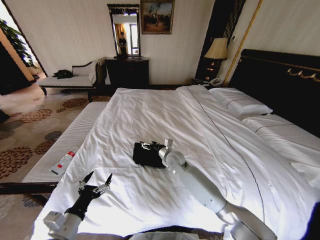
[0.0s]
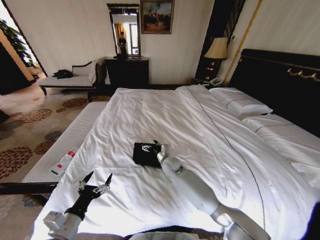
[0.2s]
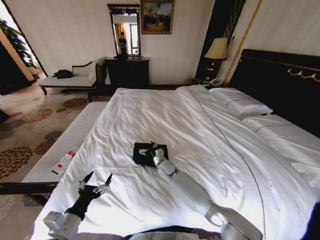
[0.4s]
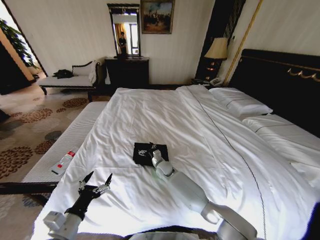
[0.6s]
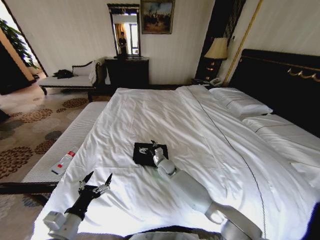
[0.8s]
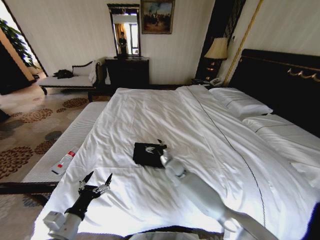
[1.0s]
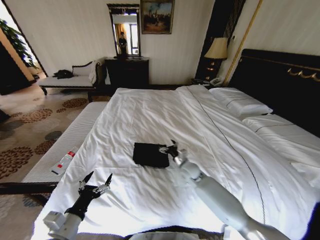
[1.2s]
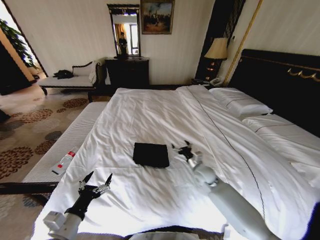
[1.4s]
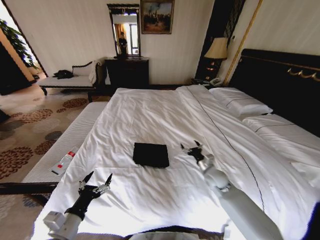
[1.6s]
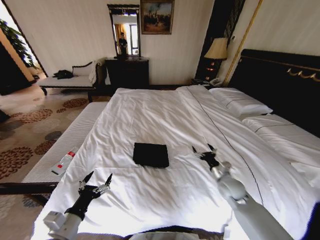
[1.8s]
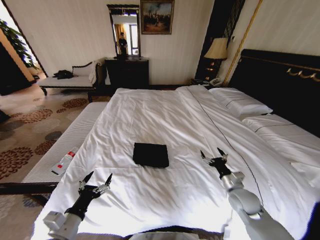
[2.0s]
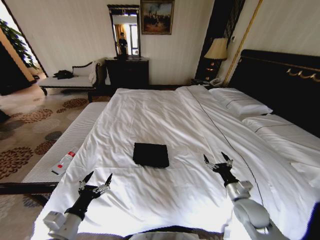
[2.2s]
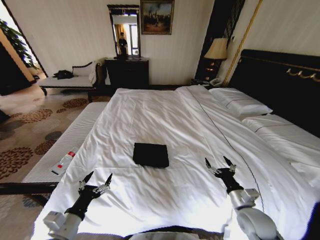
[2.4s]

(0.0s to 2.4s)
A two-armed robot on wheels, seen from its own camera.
Task of the whole recording: Fold the clothes on the bed.
0.0s - 1.2s: The right gripper is displaced to the right and downward by some 10 cm.
1.2s - 2.4s: The right gripper moves backward and to the right, some 25 cm.

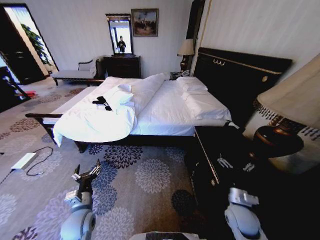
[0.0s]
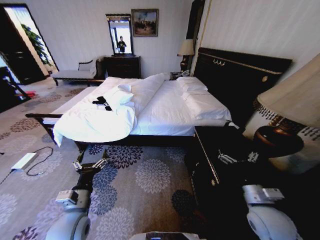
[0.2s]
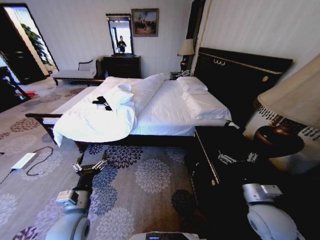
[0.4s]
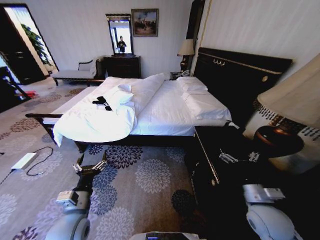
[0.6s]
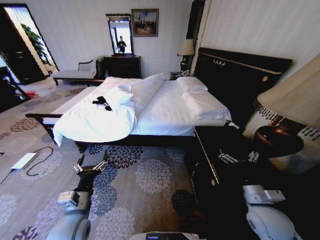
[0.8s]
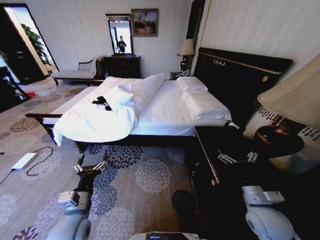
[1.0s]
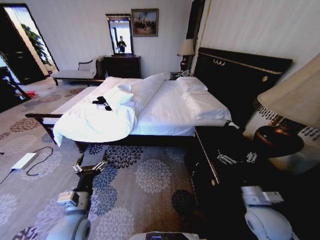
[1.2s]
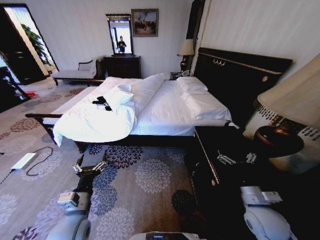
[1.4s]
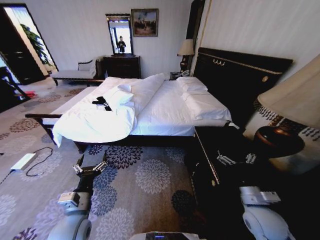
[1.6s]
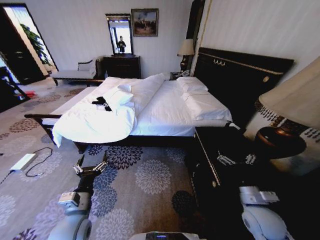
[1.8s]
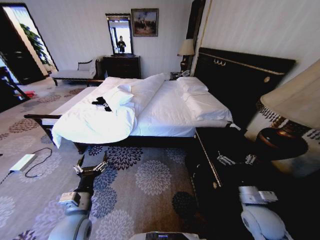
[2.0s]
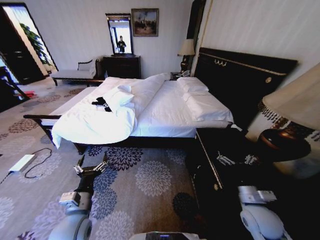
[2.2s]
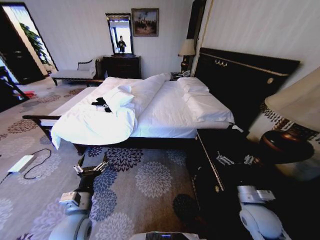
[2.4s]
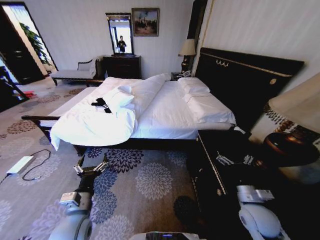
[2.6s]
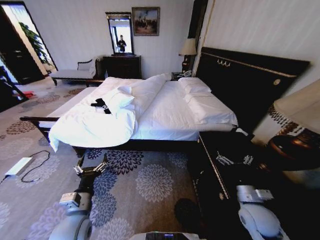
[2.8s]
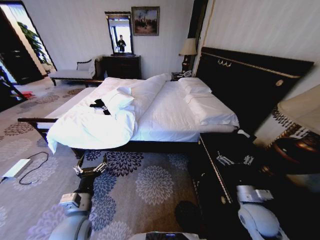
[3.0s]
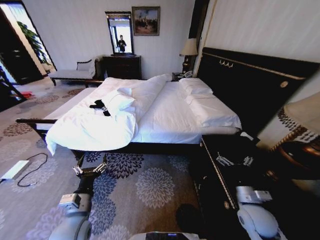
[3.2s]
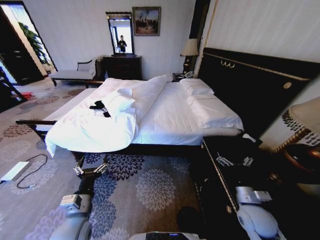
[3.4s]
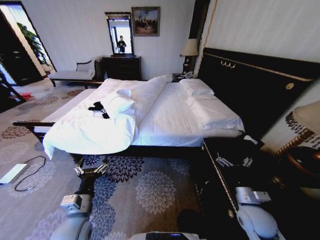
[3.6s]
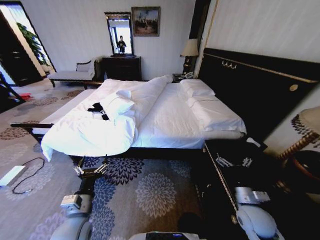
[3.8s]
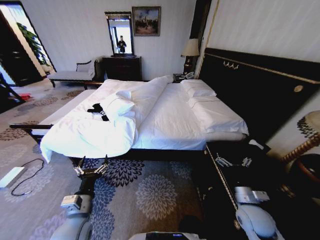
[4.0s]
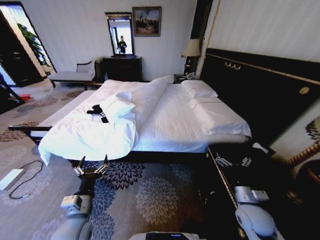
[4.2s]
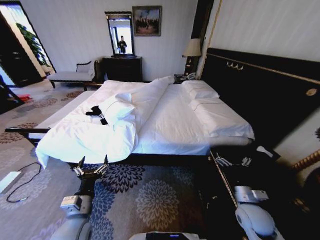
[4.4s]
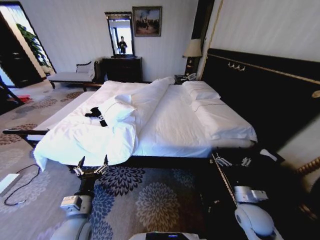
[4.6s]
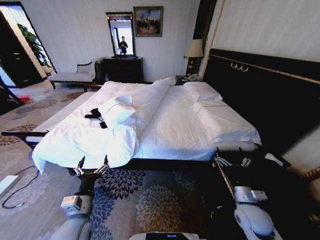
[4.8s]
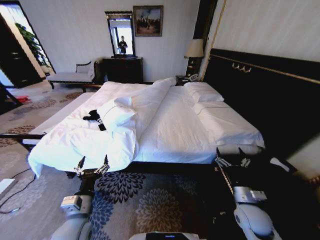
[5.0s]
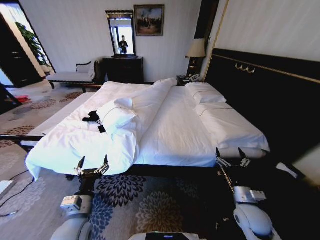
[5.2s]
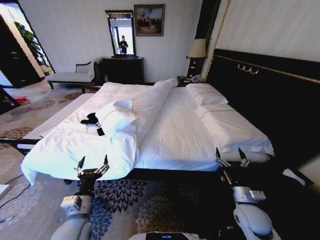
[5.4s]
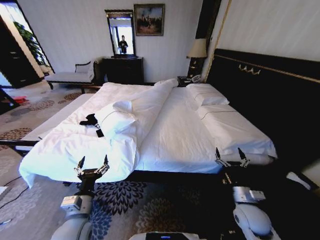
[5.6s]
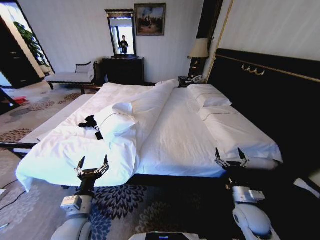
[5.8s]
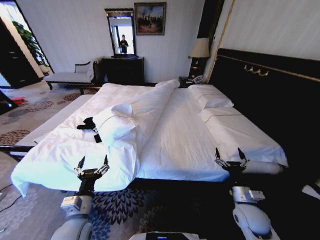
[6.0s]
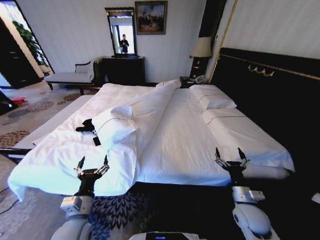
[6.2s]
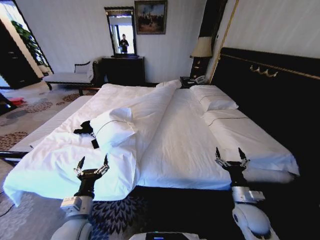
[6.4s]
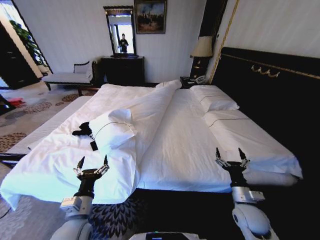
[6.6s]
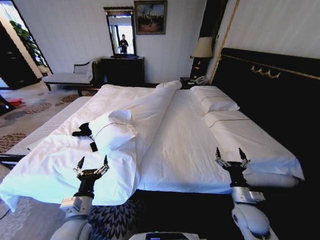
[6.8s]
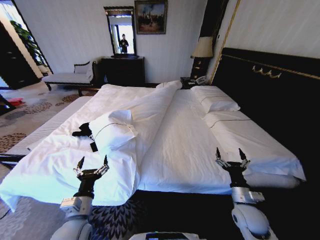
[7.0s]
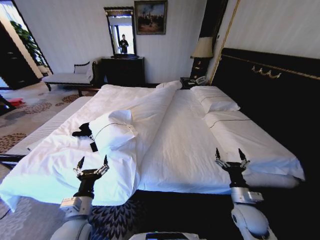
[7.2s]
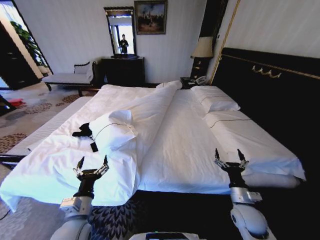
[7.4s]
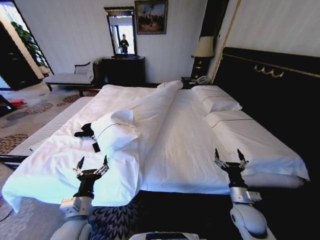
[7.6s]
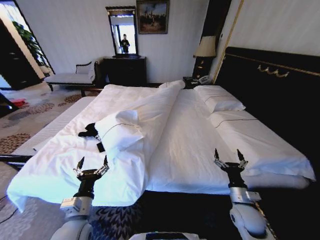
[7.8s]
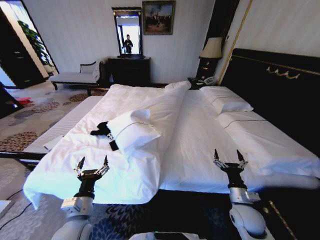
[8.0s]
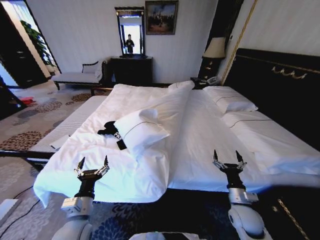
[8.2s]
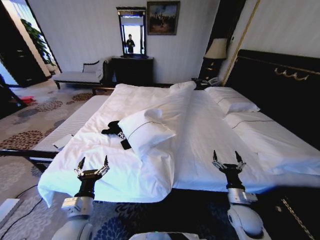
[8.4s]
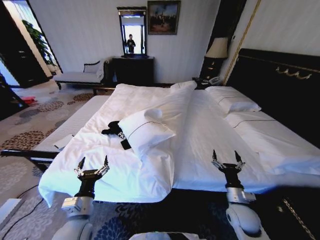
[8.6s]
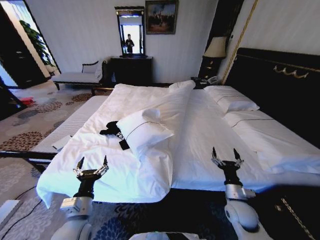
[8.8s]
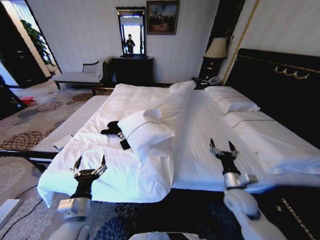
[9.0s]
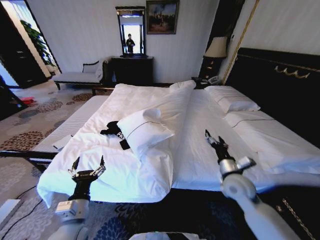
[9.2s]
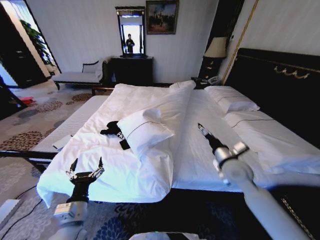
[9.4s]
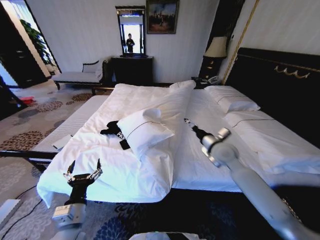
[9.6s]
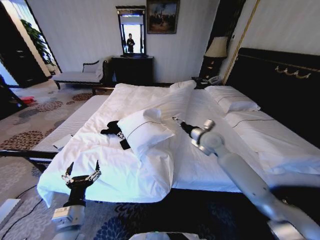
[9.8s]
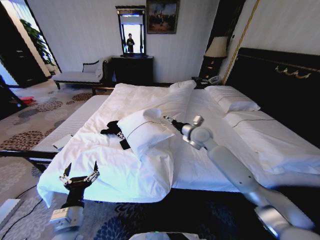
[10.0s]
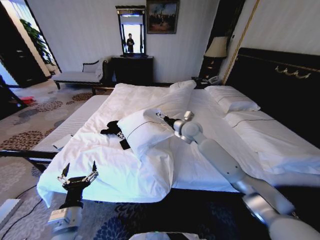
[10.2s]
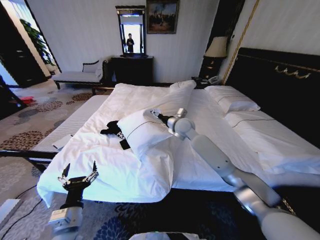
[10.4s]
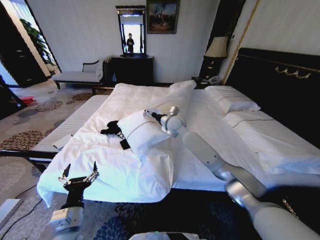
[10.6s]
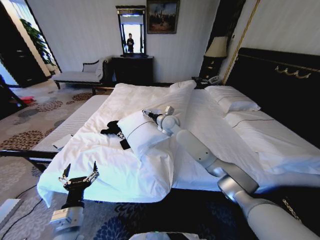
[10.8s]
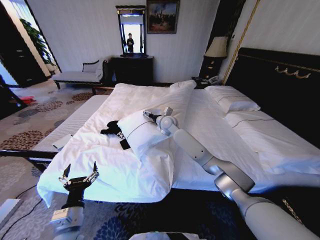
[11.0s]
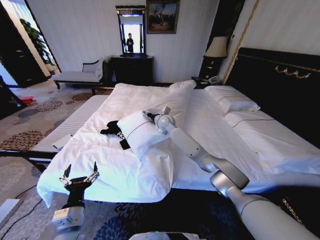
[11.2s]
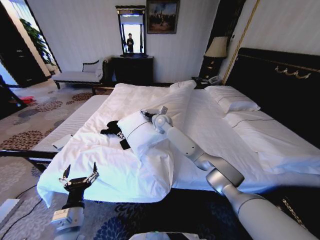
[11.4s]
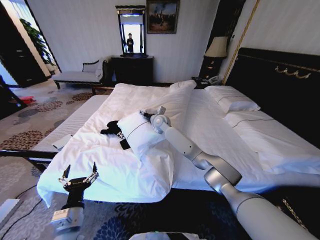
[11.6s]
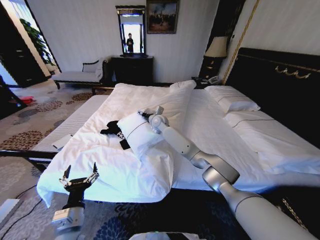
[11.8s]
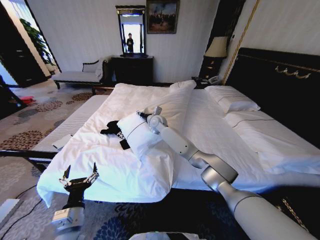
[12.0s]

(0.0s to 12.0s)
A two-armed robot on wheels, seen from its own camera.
Task of the whole recording: Fold the clothes on the bed.
7.6s - 9.0s: The right gripper moves roughly 5 cm.
9.0s - 10.4s: The right gripper travels forward, to the left and upward by approximately 35 cm.
10.4s - 12.0s: The right gripper shifts about 15 cm to the left and forward.

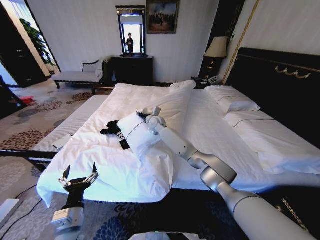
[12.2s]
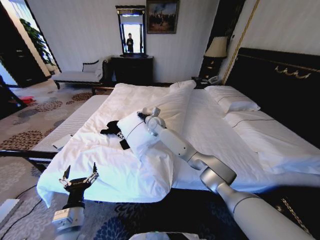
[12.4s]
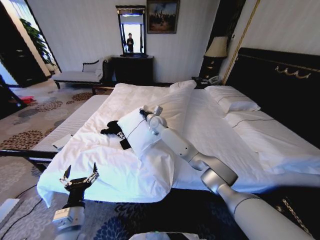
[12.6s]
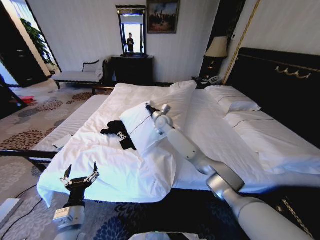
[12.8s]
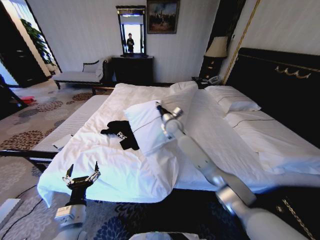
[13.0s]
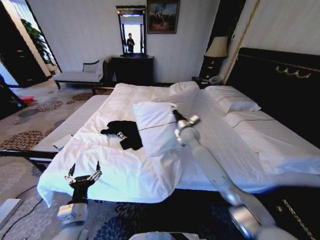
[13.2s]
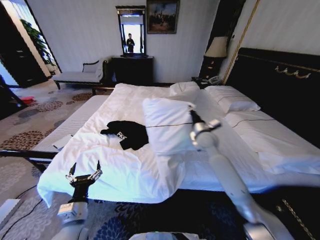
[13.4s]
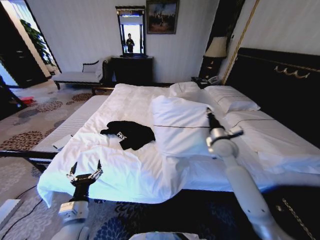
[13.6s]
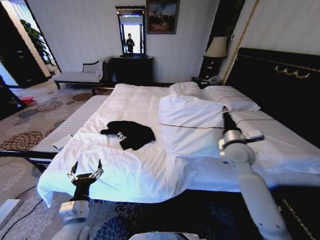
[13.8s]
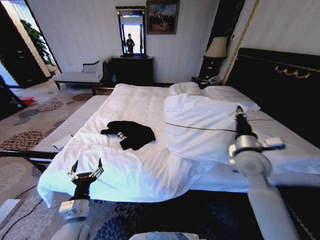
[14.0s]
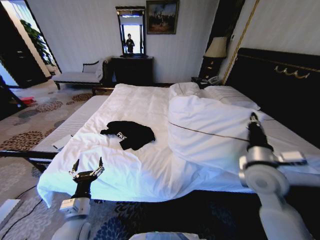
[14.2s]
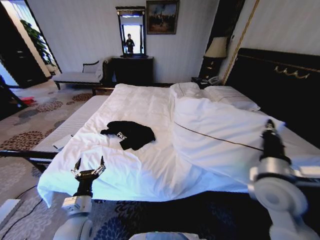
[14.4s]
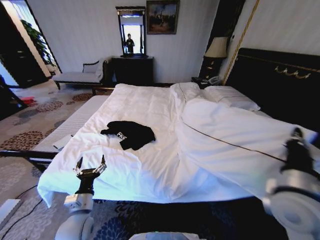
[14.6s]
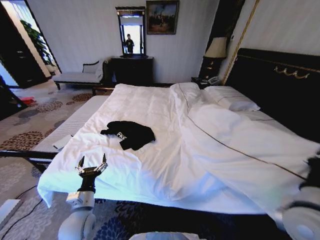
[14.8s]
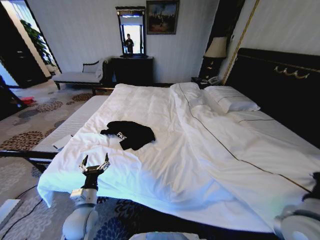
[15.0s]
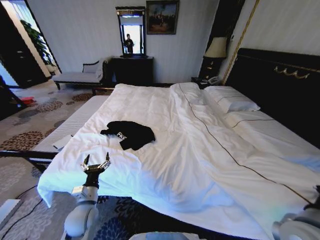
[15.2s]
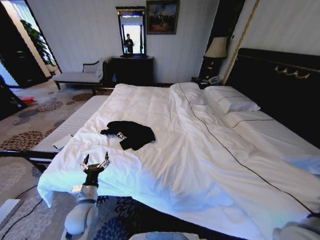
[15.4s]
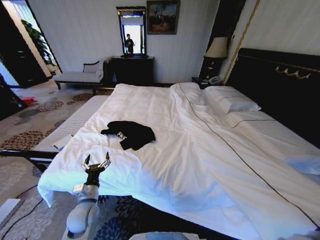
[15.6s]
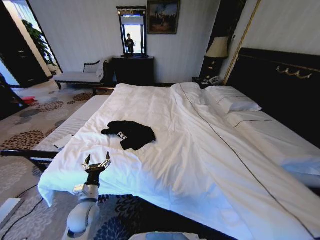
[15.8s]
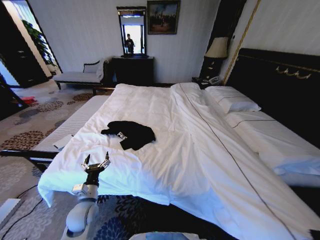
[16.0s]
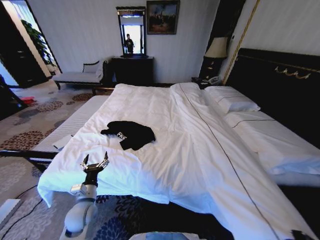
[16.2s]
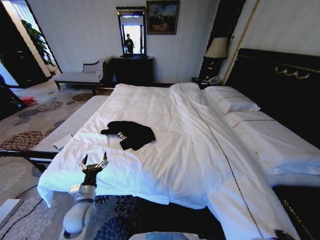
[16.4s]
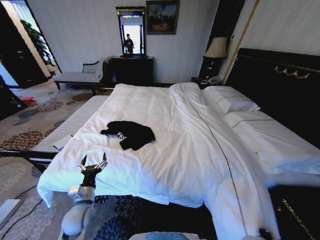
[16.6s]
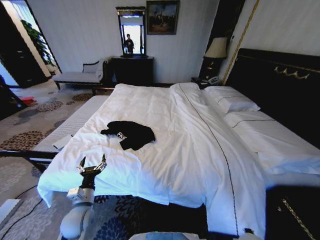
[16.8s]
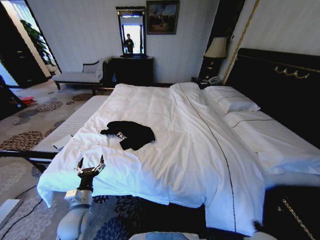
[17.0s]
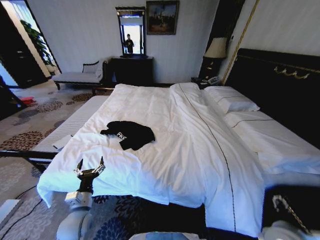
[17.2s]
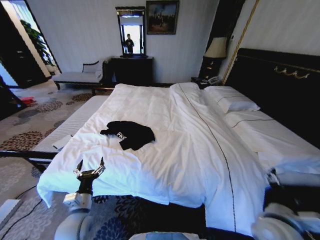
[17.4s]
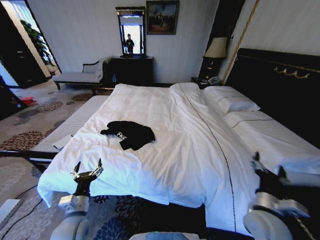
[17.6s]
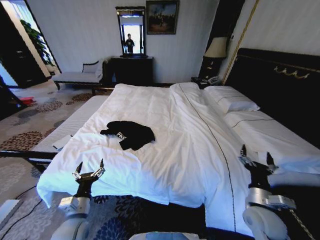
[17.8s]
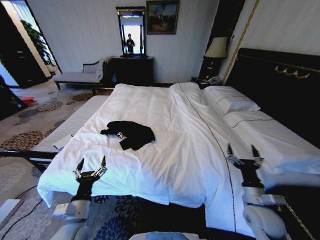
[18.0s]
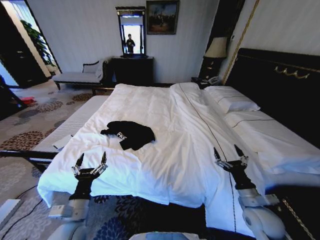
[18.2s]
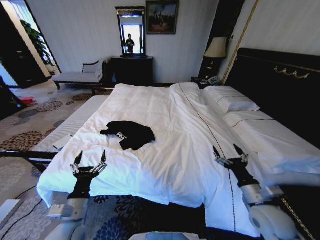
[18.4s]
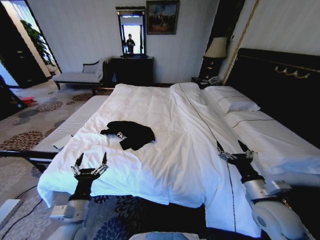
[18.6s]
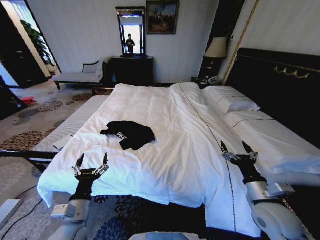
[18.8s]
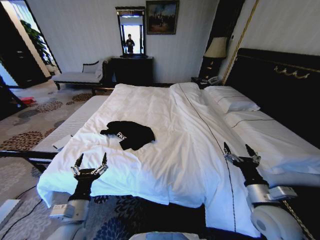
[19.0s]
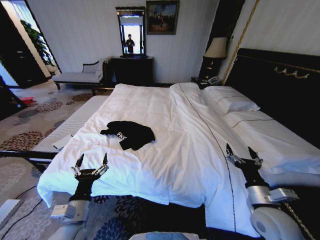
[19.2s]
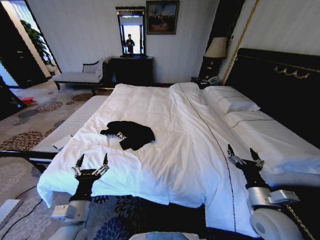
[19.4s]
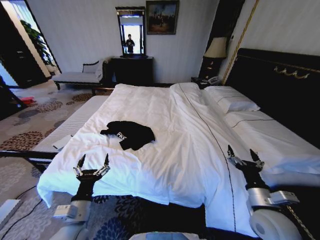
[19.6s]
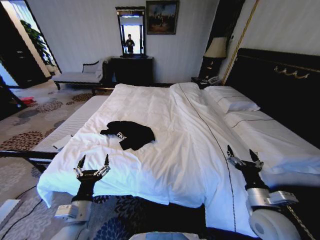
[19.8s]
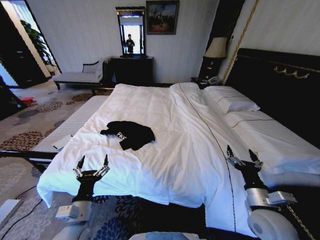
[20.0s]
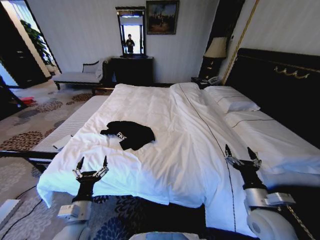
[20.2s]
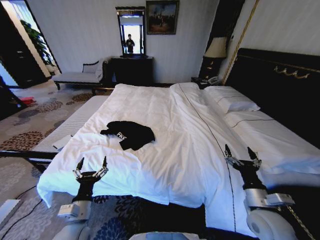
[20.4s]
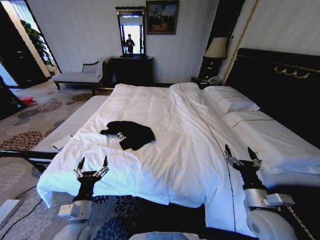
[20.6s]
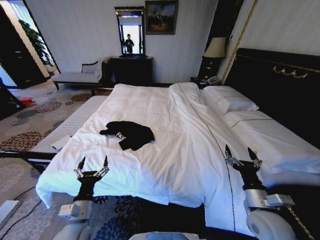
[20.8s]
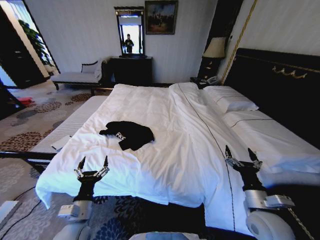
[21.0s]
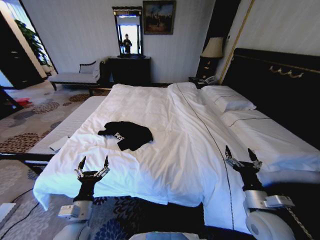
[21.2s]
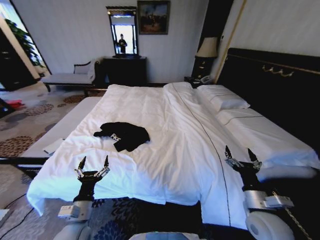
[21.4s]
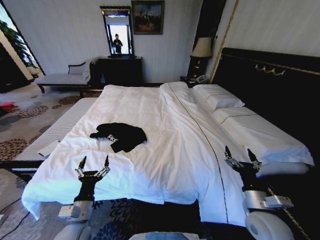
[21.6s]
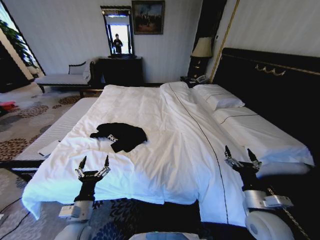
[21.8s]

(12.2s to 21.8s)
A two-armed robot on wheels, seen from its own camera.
Task of the whole recording: Fold the clothes on the bed.
12.2s - 13.8s: The right gripper shifts roughly 40 cm to the right and backward, and closes up.
13.8s - 15.4s: The left gripper heads forward, covering roughly 5 cm. Meanwhile the right gripper is displaced backward by some 25 cm.
15.4s - 17.0s: The right gripper travels downward by roughly 10 cm, and opens up.
17.0s - 18.6s: The left gripper travels upward and backward by some 10 cm, while the right gripper swings up and down, some 10 cm each way, with 2 reversals, and opens its fingers.
18.6s - 20.2s: There are only small adjustments of the grippers.
